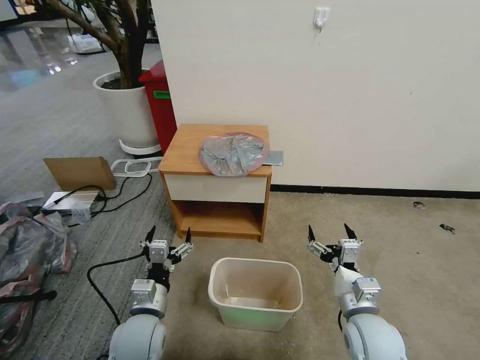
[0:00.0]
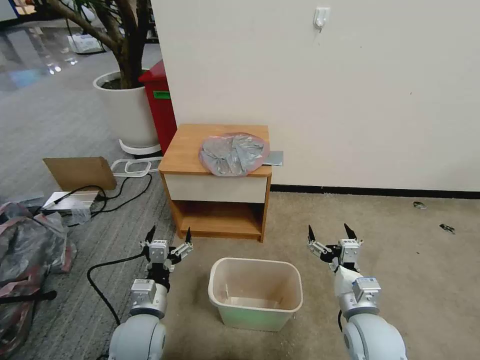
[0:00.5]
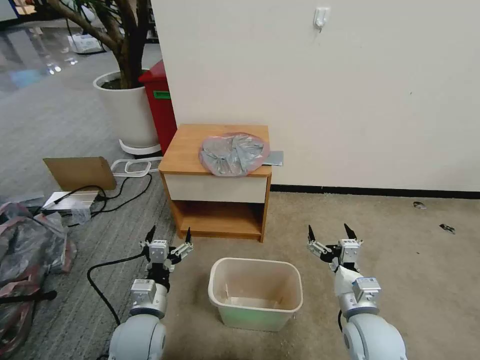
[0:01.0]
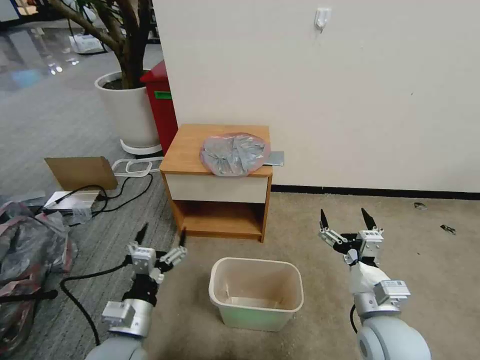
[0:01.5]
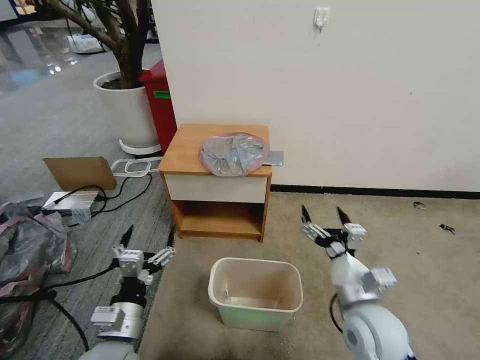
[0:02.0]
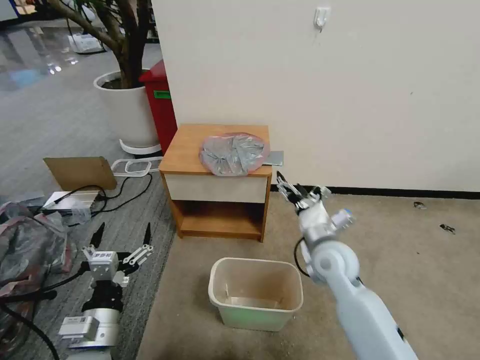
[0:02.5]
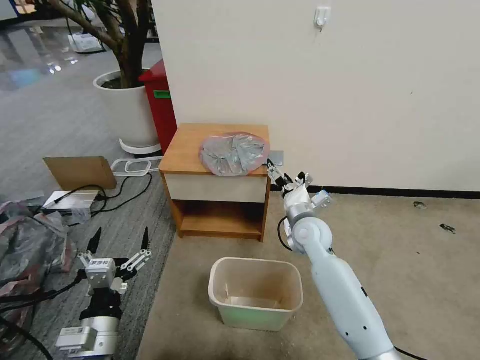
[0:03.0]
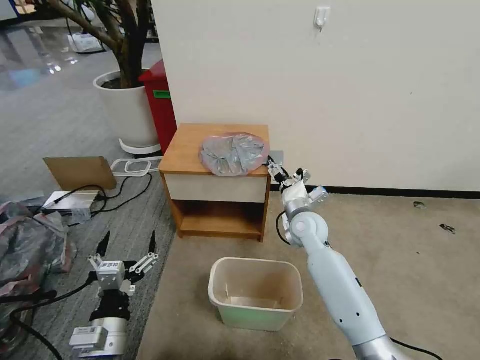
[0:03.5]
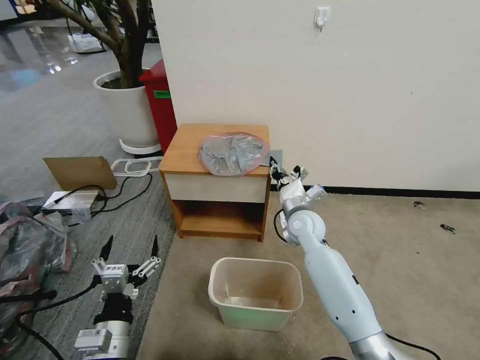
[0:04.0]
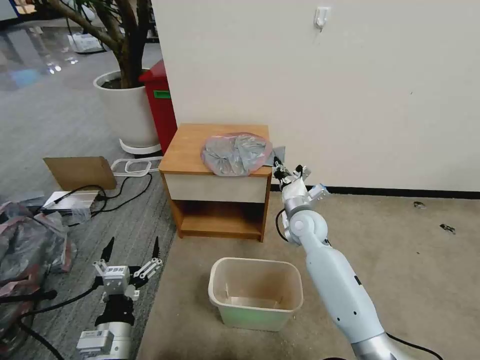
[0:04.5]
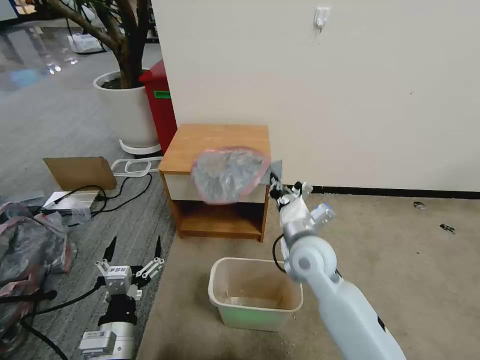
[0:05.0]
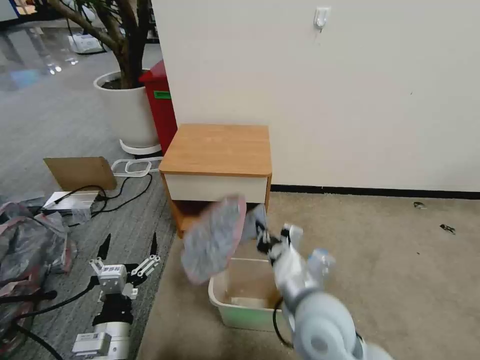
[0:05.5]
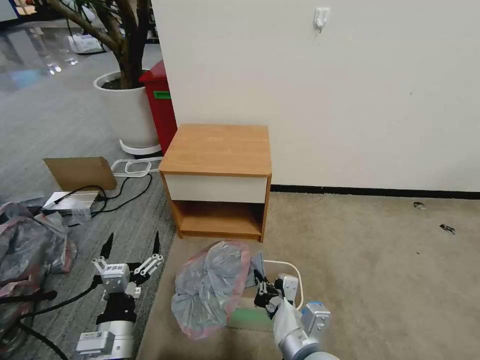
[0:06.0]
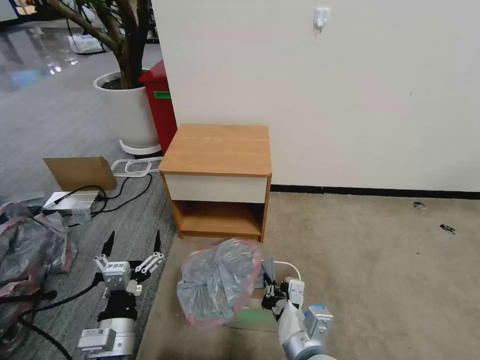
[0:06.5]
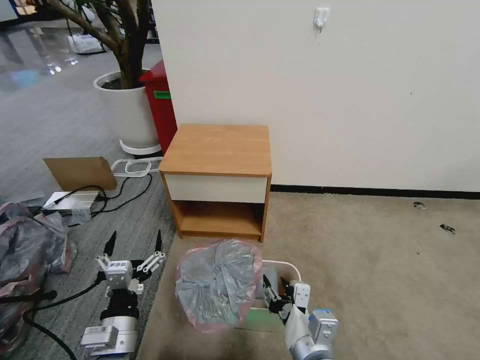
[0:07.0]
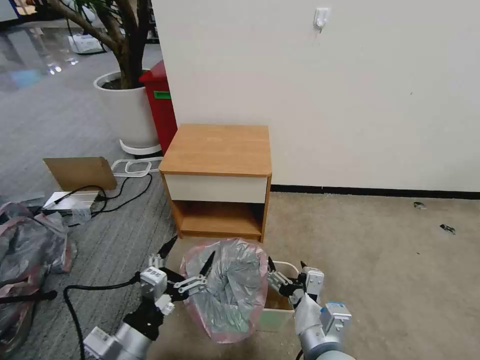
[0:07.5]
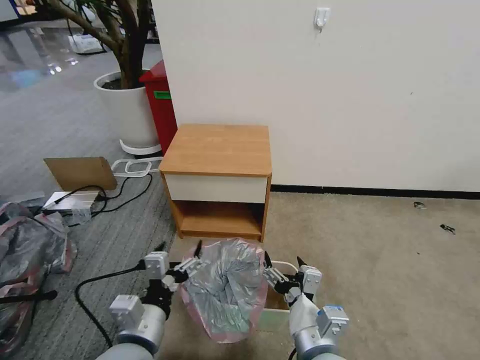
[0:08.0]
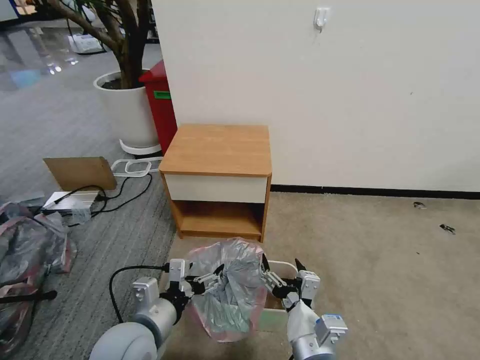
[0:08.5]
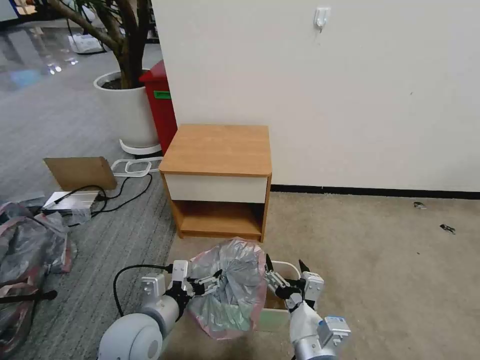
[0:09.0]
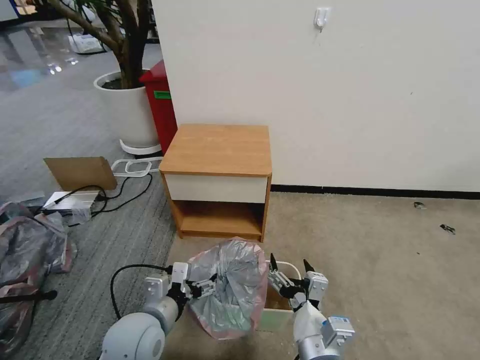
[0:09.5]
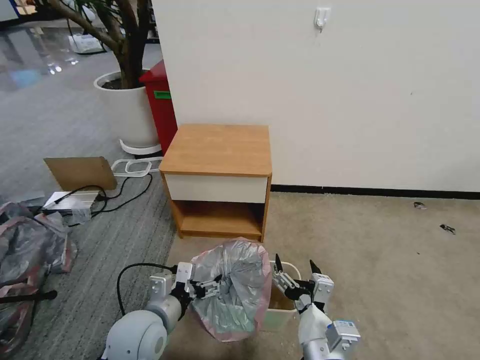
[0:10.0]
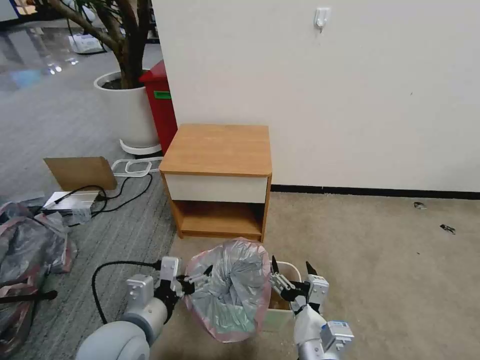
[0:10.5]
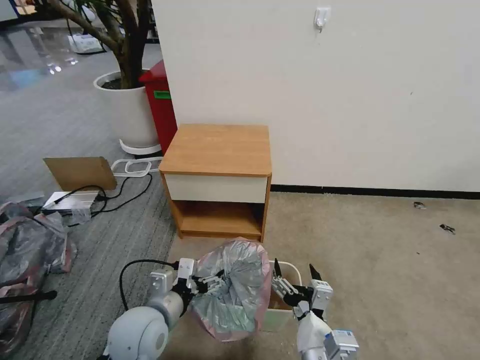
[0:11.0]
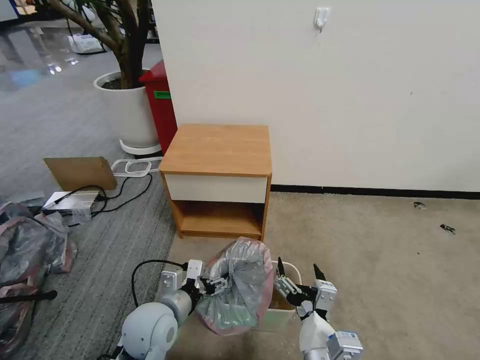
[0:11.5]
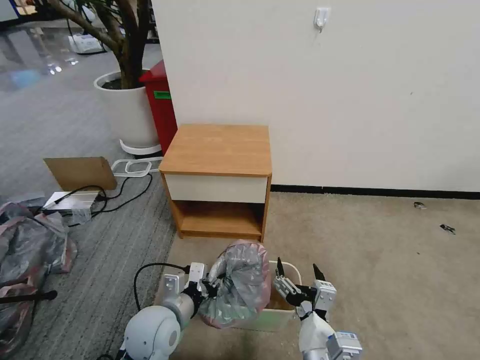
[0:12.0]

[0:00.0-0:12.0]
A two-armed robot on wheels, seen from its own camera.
Task of the whole recording: Pick up the garbage bag from the table and place it over the trash can.
0:02.0 to 0:04.0: The right gripper heads forward, covering roughly 25 cm, and closes up.
0:04.0 to 0:06.0: The right gripper moves backward, roughly 30 cm.
0:06.0 to 0:08.0: The right gripper opens; the left gripper ends up roughly 5 cm from where it was.
0:08.0 to 0:10.0: The left gripper shifts some 5 cm forward.
0:10.0 to 0:12.0: The left gripper goes upward and returns, about 5 cm each way, and closes its fingers.

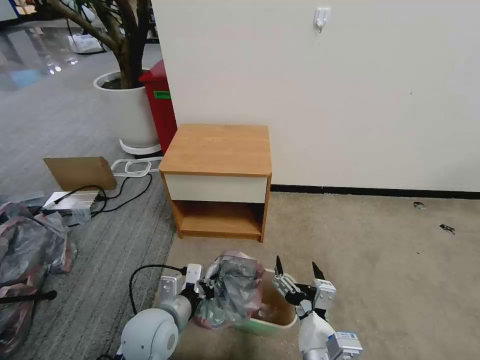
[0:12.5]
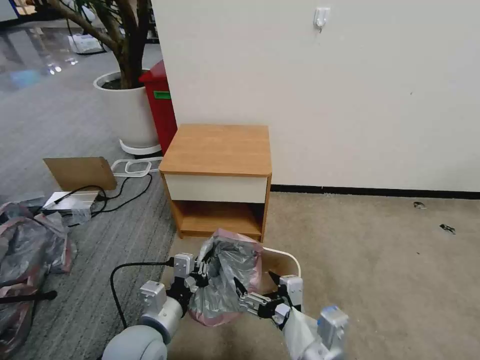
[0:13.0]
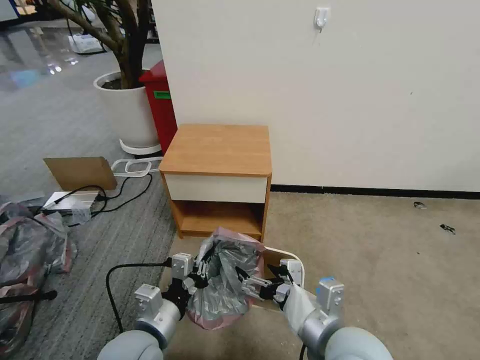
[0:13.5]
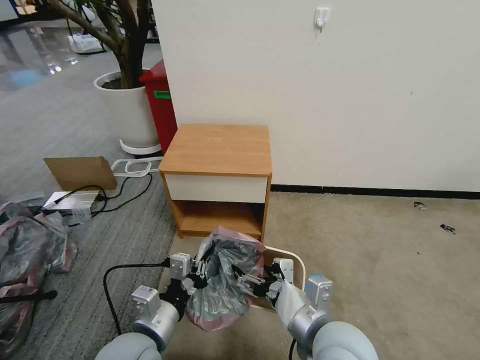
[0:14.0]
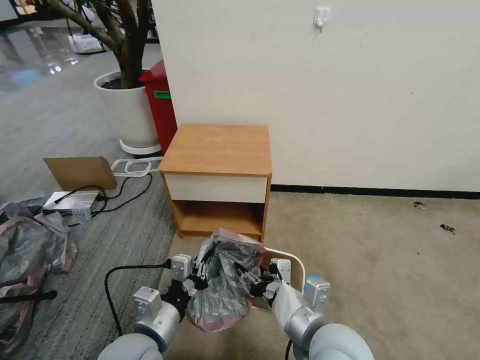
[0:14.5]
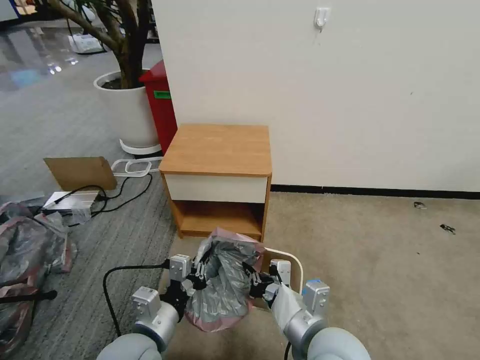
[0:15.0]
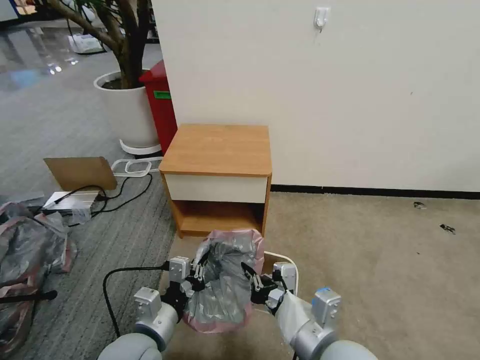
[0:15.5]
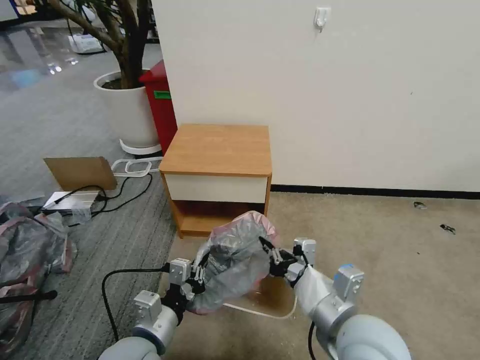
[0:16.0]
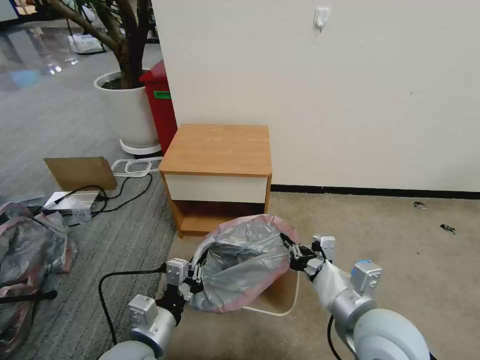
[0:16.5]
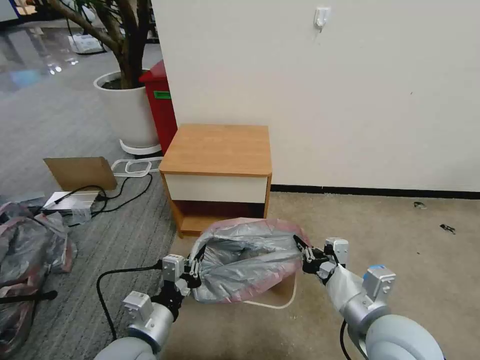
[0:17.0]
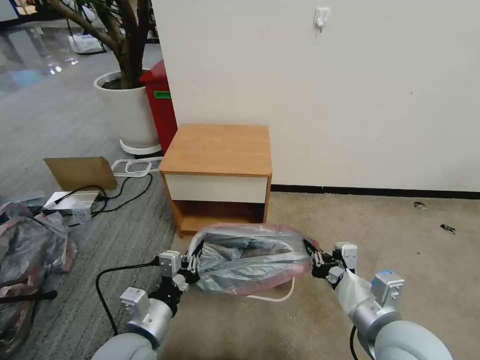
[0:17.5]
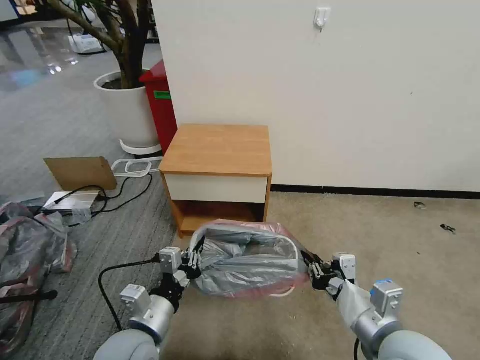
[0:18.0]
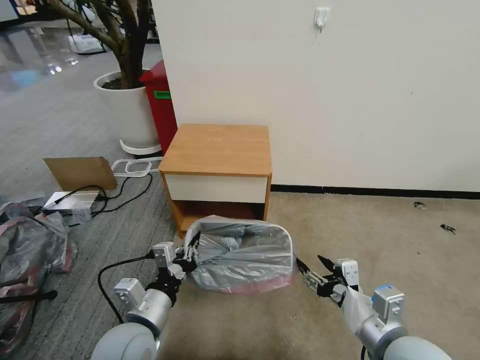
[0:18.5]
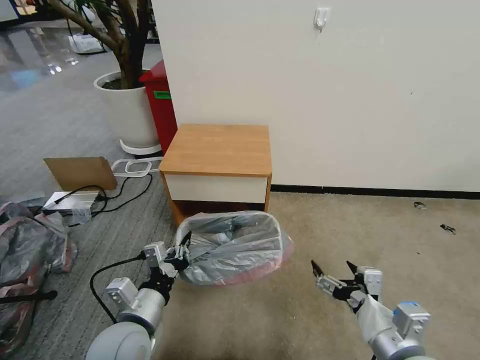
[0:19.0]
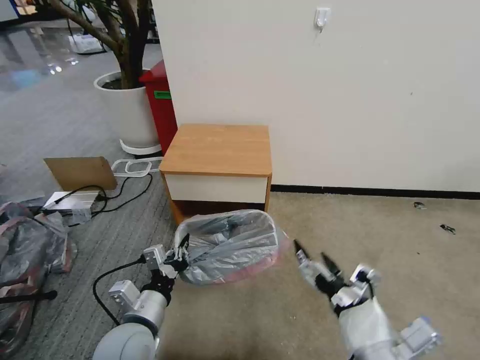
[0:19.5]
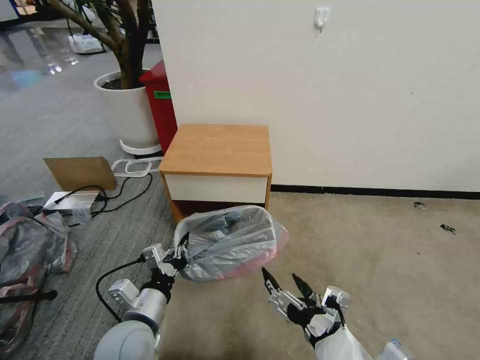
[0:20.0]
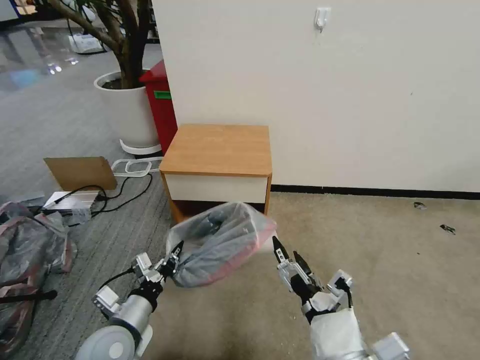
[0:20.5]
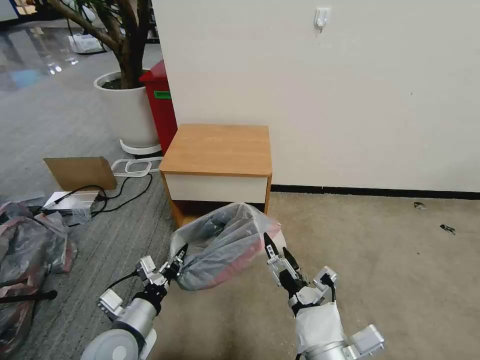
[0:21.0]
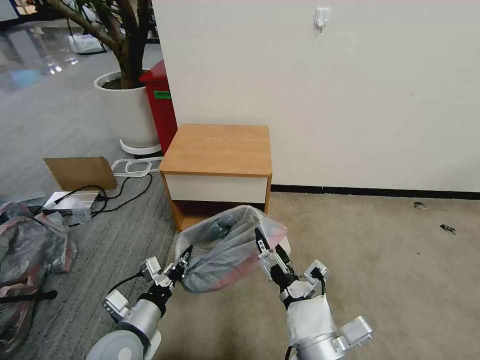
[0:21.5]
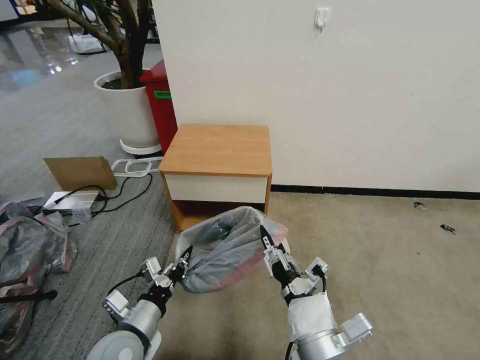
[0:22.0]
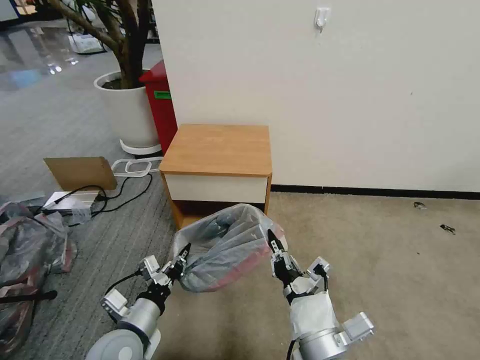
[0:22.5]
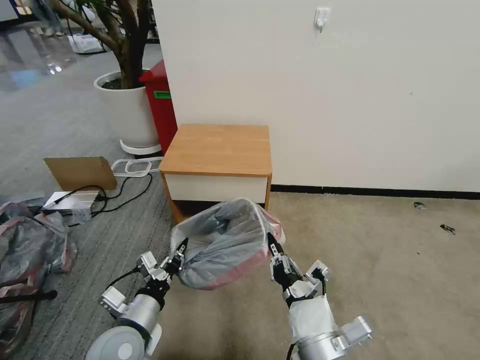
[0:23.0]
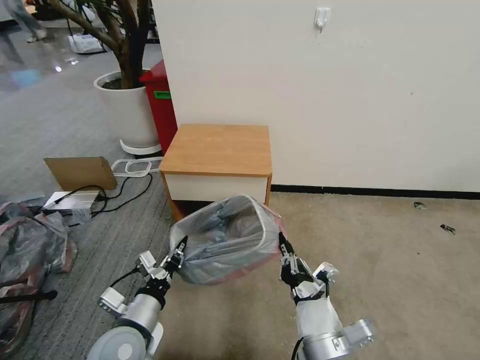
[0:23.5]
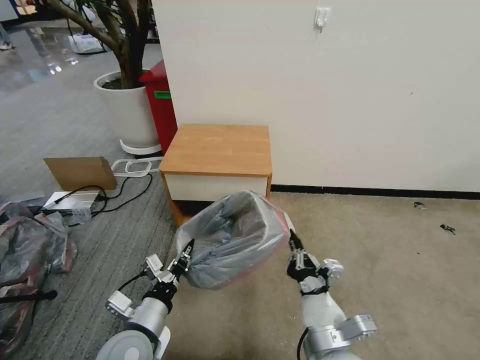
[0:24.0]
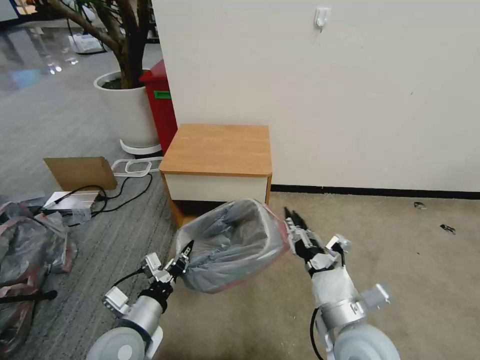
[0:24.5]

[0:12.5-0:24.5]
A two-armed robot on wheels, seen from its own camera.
Task of the whole recording: Pick up the garbage bag from the table and place it over the trash can.
0:12.5 to 0:14.5: The right gripper goes about 10 cm forward and upward, and closes. The left gripper travels backward by about 5 cm.
0:14.5 to 0:16.5: The right gripper heads to the right, covering some 5 cm, and closes its fingers.
0:16.5 to 0:18.5: The right gripper shifts by approximately 5 cm, and opens its fingers.
0:18.5 to 0:20.5: The right gripper heads to the left and backward, covering about 10 cm, and opens up. Meanwhile the left gripper heads to the left, covering some 5 cm.
0:20.5 to 0:22.5: The right gripper closes its fingers.
0:22.5 to 0:24.5: The right gripper goes some 10 cm to the right and forward, and opens its fingers.

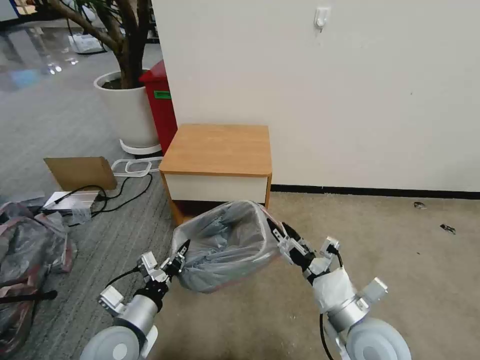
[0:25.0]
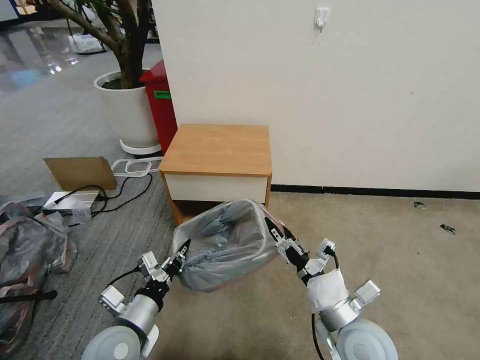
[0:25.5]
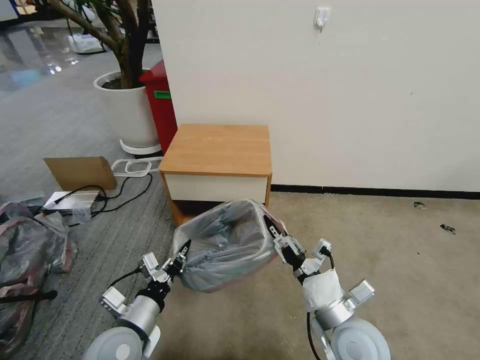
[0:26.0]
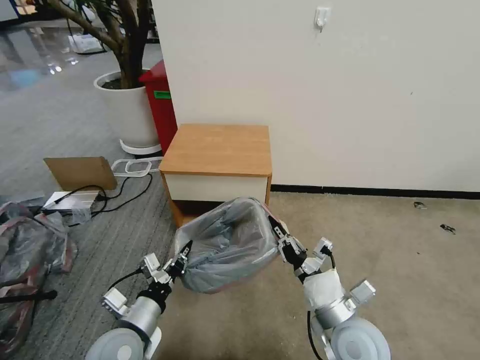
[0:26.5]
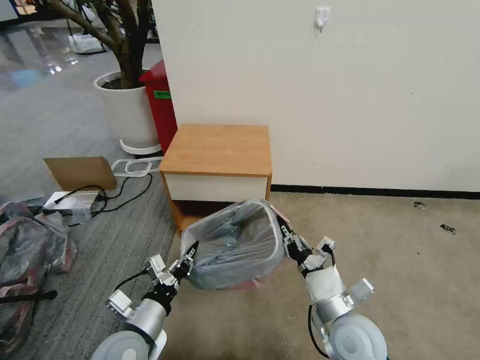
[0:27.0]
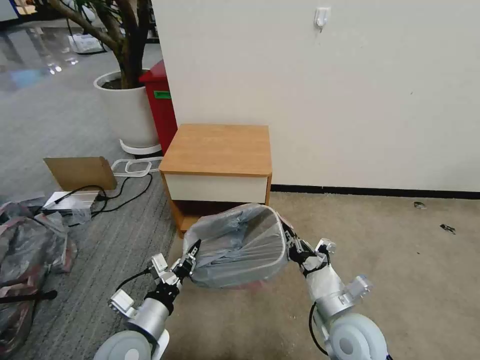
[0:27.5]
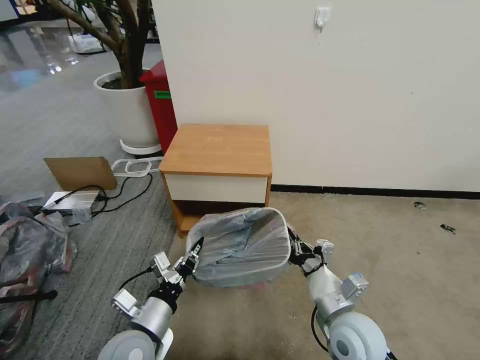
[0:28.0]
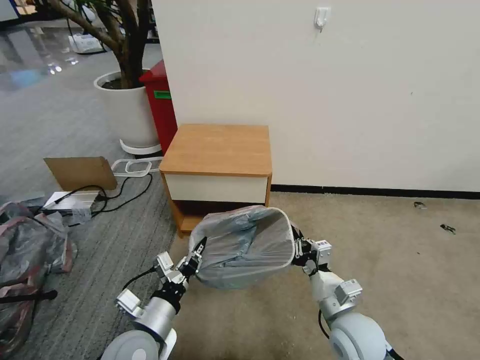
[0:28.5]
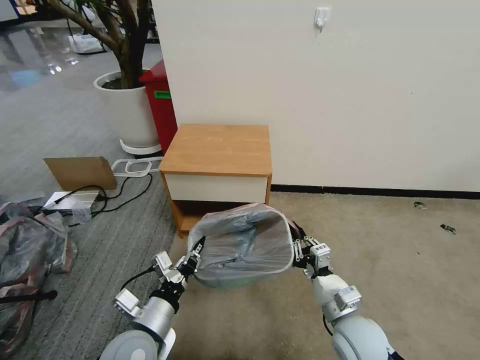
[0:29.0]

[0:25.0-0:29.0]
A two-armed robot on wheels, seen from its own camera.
Task of the whole recording: Pick up the garbage bag from the table and place it over the trash can.
0:25.0 to 0:27.0: The right gripper closes up.
